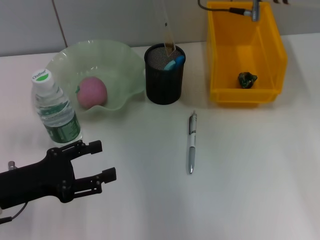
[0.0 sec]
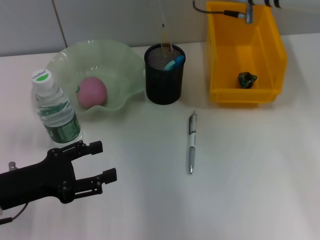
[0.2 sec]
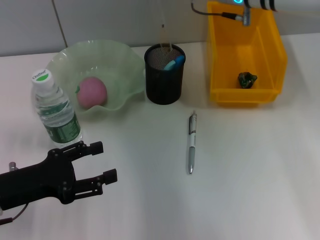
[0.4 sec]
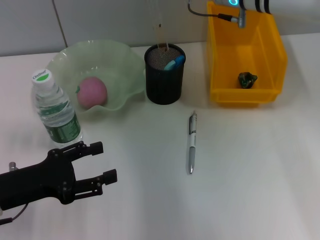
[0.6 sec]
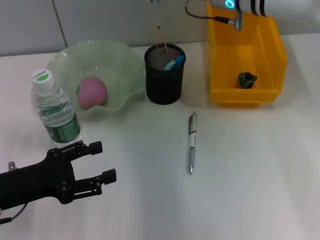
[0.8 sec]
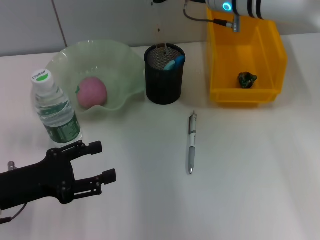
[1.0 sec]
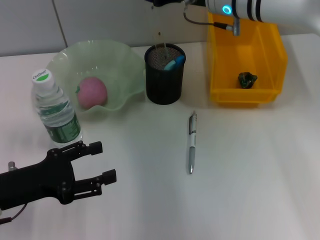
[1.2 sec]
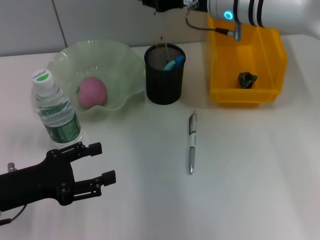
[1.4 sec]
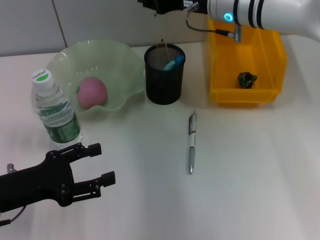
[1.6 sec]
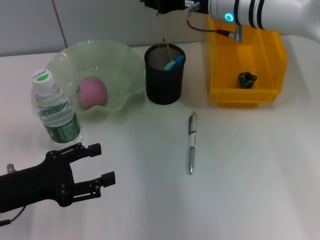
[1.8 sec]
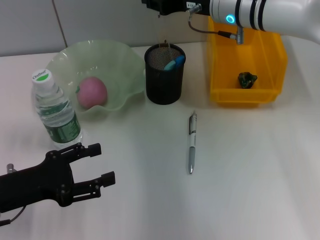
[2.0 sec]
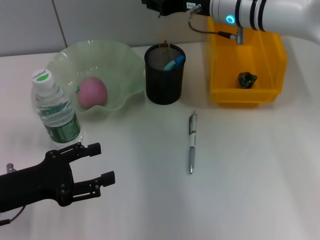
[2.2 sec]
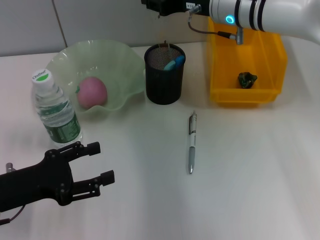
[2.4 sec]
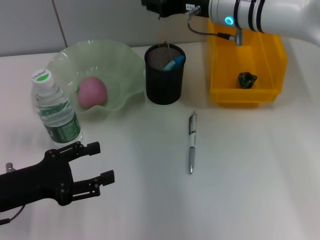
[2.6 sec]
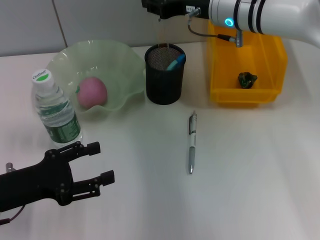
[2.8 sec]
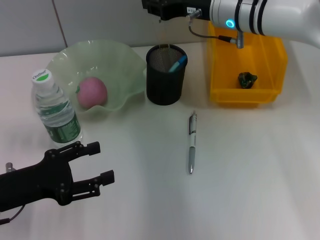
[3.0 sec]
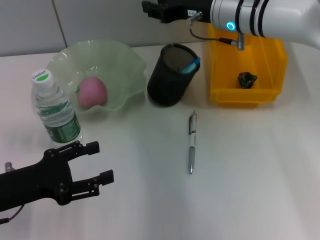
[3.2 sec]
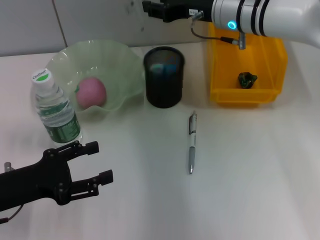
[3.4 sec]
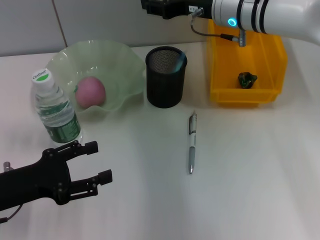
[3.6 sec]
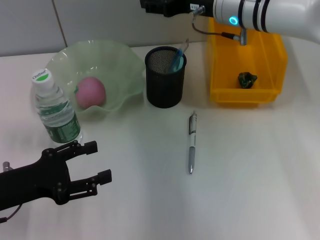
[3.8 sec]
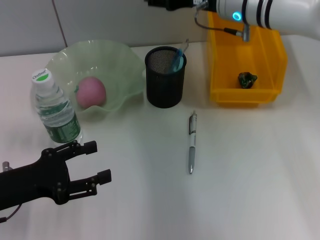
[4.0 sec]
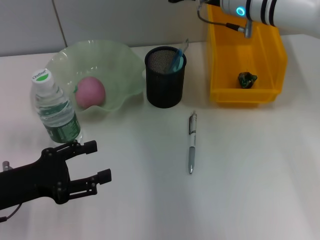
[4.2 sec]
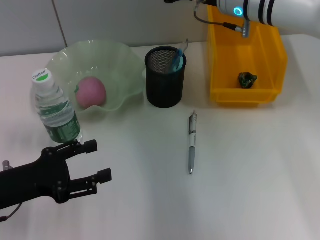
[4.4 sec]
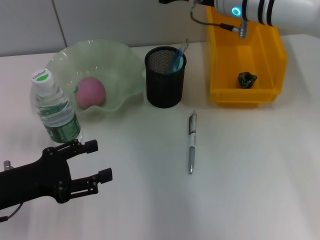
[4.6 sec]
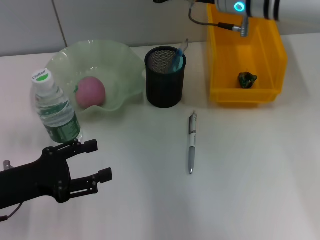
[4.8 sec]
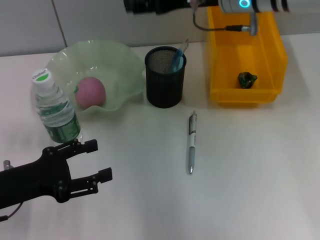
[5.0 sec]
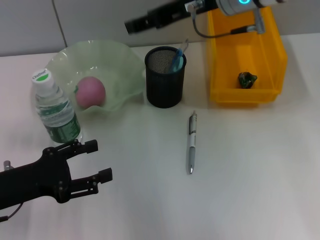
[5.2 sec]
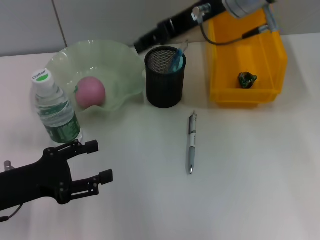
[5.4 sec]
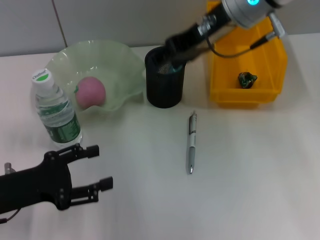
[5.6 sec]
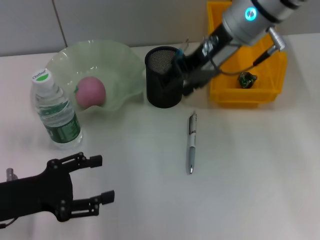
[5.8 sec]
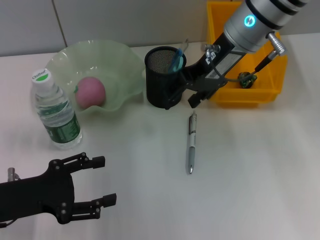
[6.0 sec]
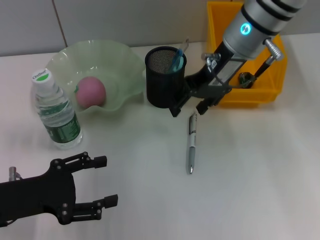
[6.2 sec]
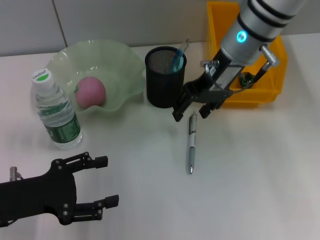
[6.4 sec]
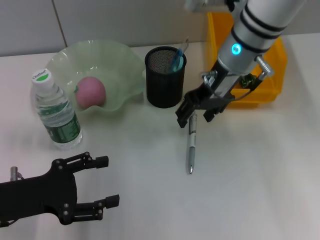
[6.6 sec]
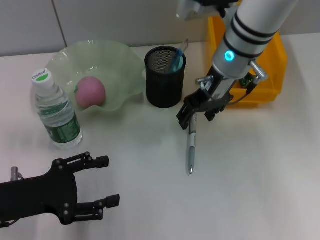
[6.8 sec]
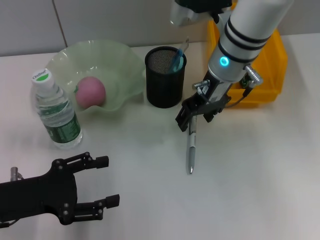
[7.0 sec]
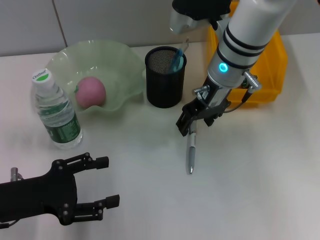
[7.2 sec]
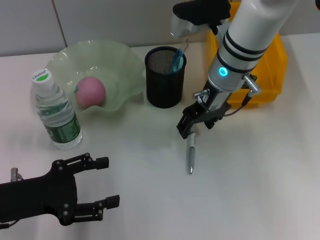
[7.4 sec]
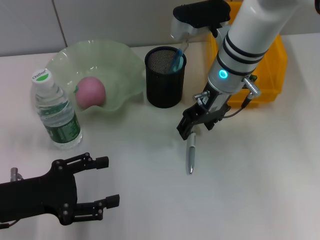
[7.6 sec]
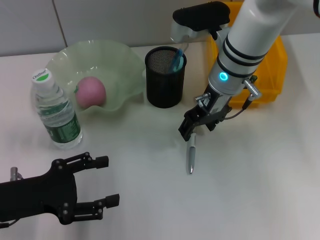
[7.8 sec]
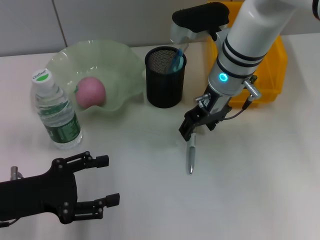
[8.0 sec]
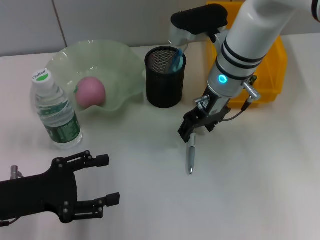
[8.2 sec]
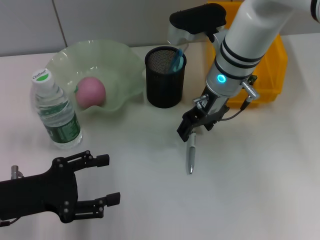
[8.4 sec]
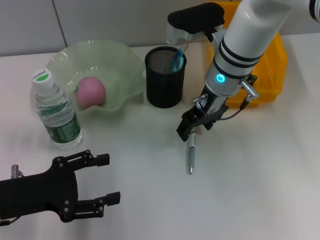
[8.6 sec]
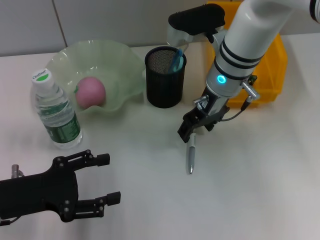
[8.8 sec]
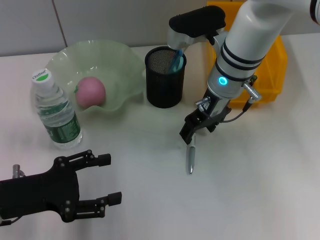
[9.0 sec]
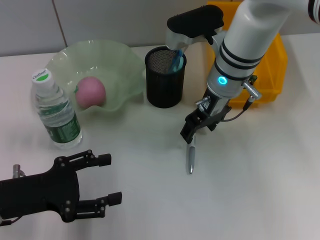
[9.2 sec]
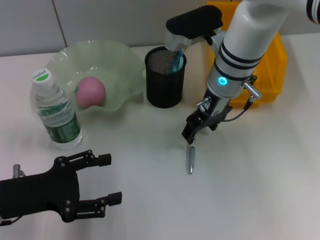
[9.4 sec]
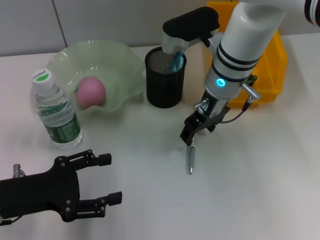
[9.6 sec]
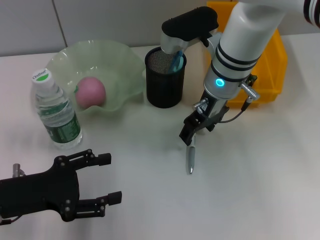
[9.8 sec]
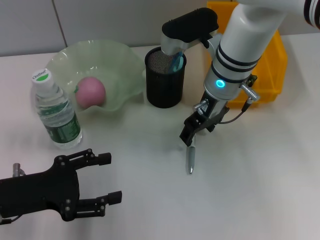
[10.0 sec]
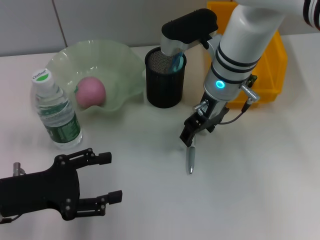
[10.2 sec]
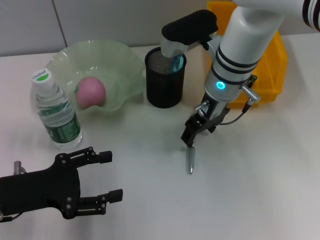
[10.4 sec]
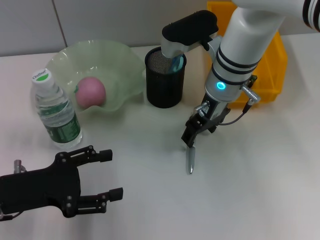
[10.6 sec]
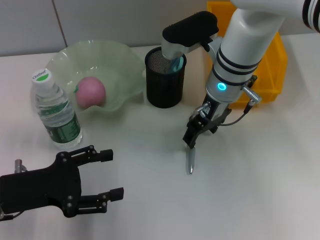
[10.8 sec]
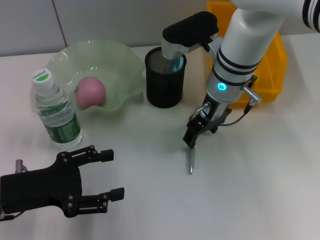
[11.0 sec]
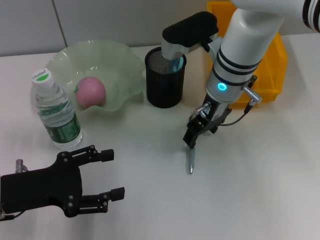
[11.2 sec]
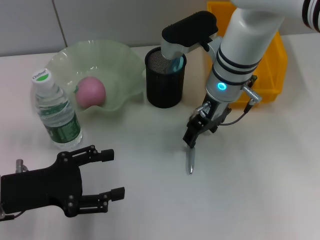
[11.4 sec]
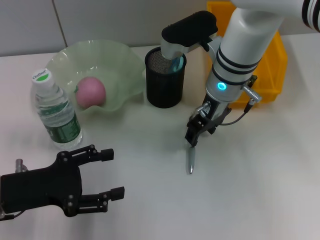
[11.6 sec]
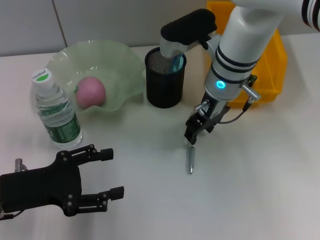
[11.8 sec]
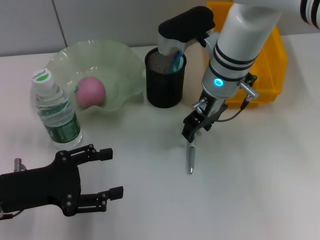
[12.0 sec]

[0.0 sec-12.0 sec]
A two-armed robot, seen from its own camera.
Step, 0.0 sec to 4.0 sec: Place the ruler into the pen holder with the right hand.
0.0 sec to 1.6 sec: The grippers move only a little.
1.6 sec to 3.0 sec: Neither gripper changes place.
3.0 sec to 4.4 sec: The right gripper opens.
6.0 sec to 7.6 sec: The right gripper is displaced downward by some 5 cm.
7.6 sec to 9.0 sec: The two grippers keep their place.
9.0 sec to 10.4 sec: The grippers make only small movements.
10.4 sec to 12.0 sec: The two grippers keep their place.

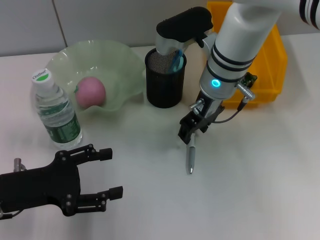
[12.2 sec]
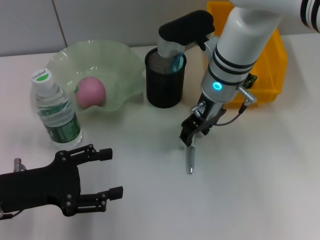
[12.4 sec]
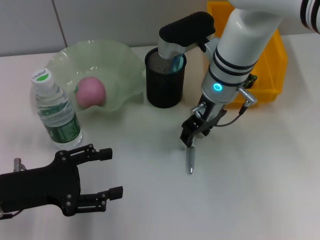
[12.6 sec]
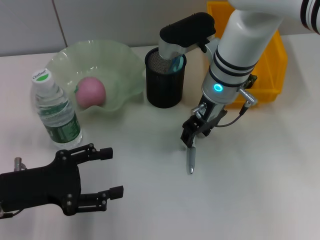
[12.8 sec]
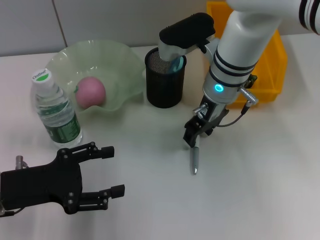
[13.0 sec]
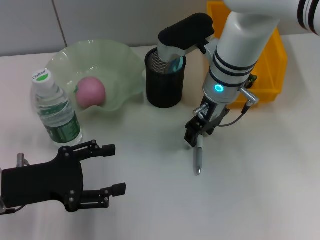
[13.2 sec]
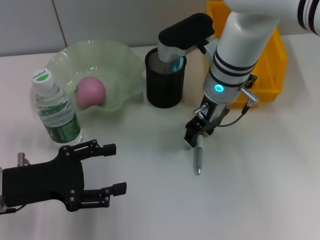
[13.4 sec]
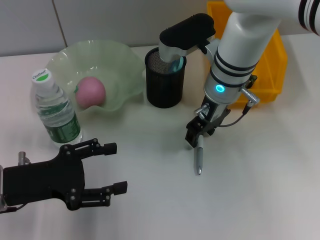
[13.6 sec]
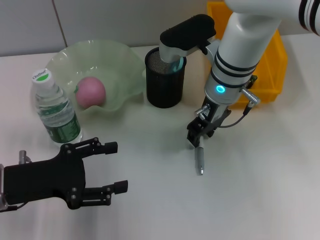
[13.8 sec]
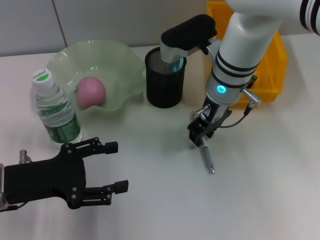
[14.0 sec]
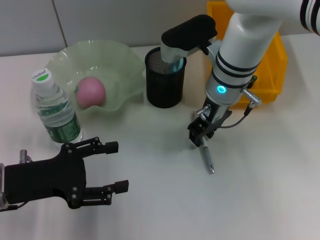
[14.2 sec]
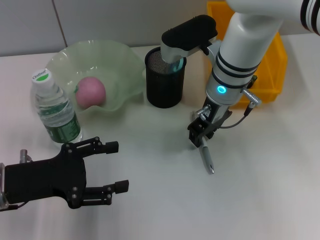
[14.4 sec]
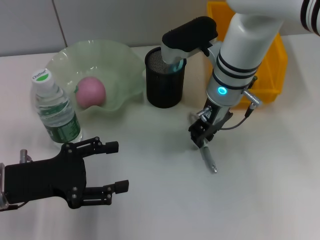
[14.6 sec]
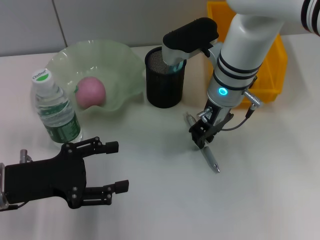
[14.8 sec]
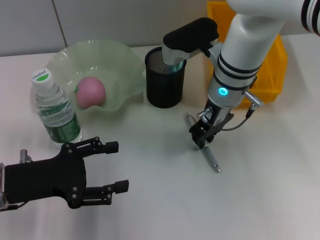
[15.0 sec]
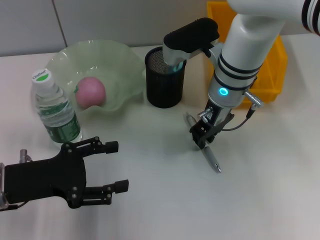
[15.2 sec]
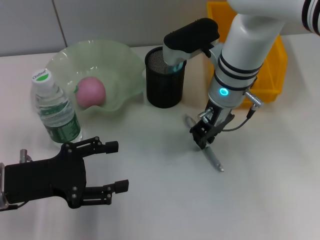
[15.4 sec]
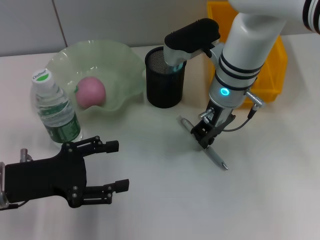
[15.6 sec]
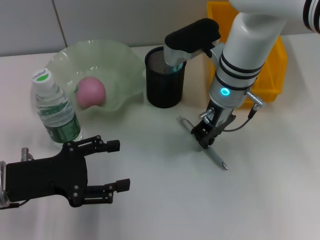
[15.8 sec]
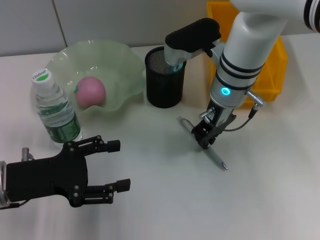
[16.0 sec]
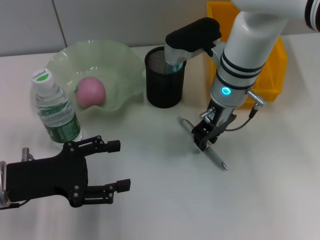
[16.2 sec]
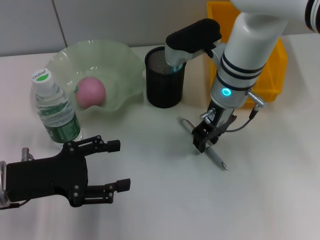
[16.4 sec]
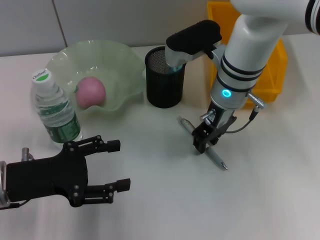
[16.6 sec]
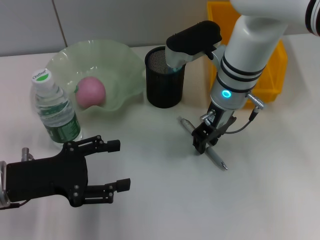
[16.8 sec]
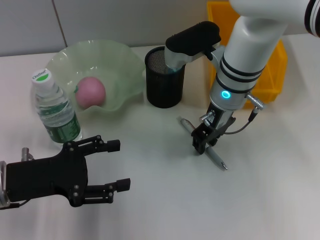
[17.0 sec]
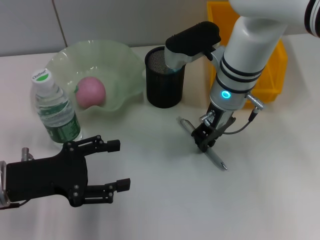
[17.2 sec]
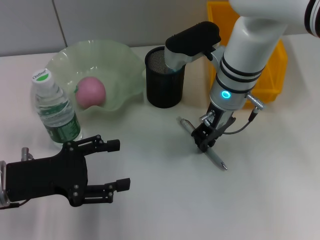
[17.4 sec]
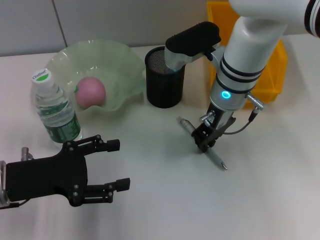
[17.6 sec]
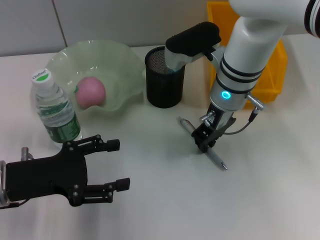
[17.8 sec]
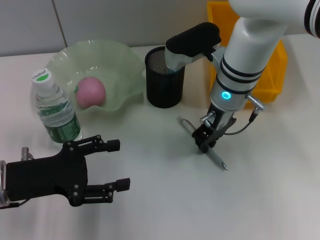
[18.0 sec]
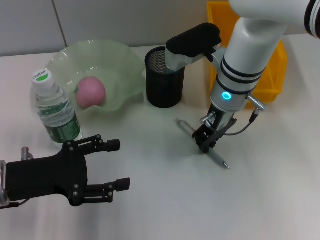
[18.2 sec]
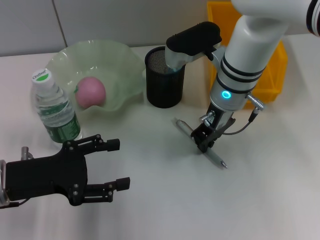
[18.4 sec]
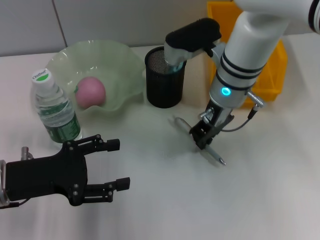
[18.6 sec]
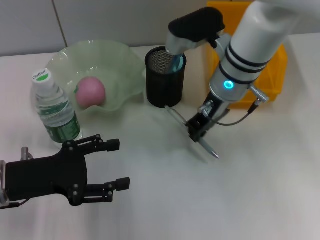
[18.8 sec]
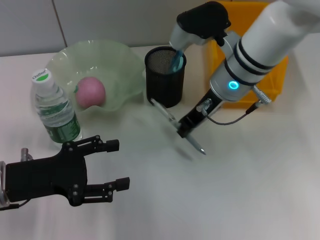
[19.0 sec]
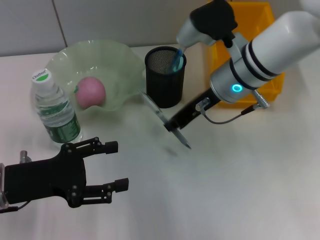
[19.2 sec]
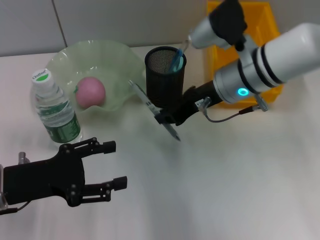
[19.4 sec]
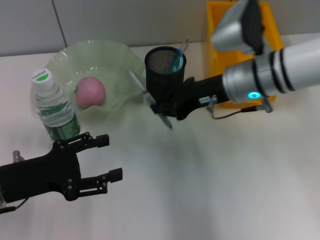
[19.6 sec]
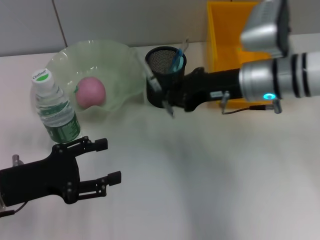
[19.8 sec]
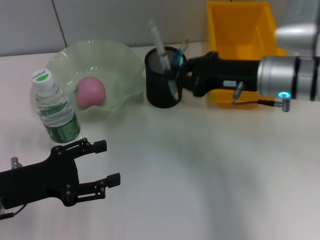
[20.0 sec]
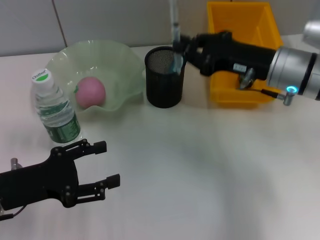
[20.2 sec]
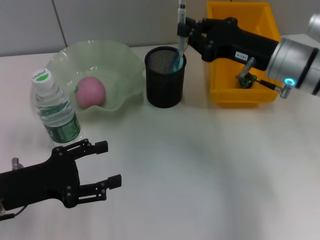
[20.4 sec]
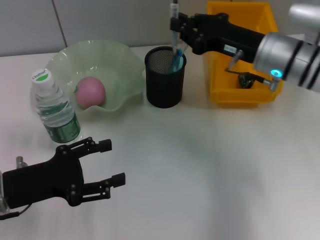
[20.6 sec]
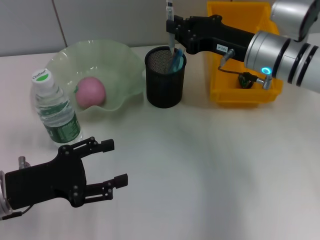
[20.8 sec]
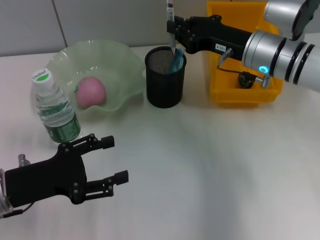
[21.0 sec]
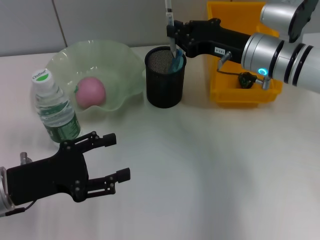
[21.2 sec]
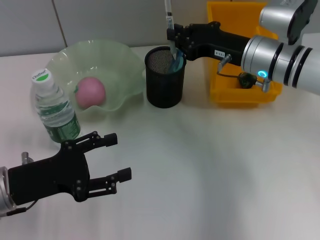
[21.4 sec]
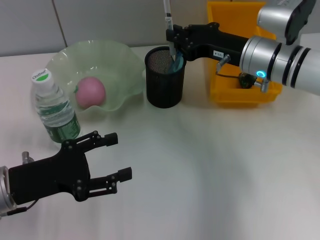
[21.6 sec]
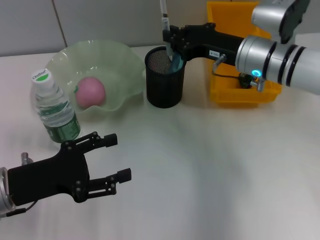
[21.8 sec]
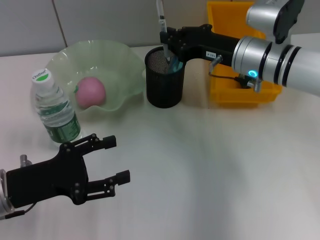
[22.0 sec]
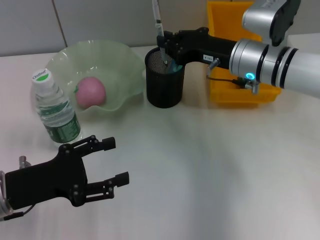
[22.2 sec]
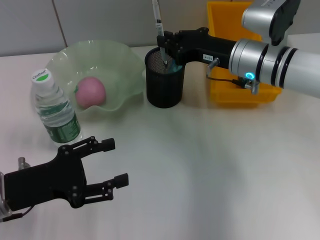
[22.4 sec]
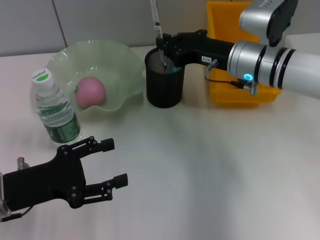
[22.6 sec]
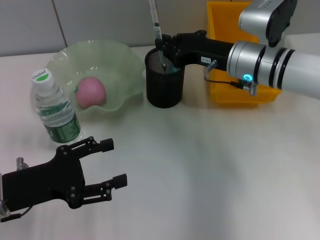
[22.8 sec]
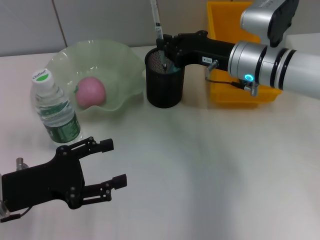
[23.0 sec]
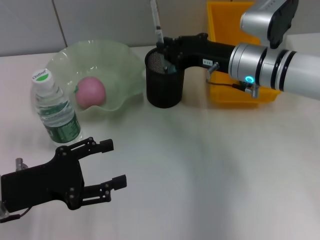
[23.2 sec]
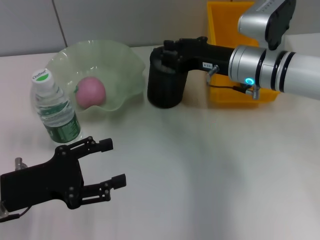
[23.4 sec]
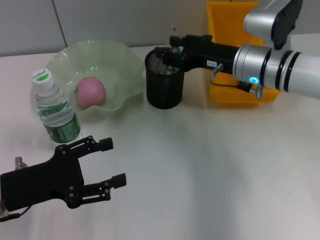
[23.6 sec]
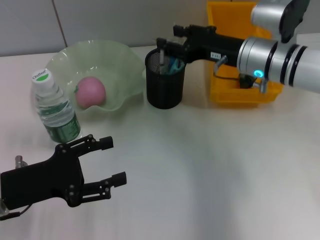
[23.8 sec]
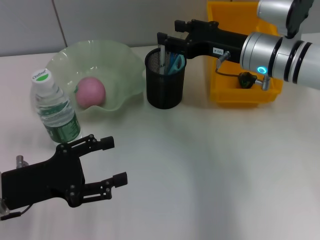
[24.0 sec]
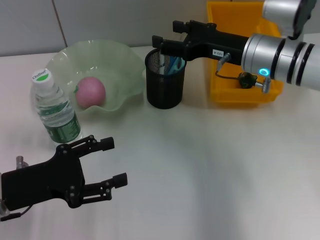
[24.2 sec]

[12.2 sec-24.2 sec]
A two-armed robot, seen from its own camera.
Step, 12.2 sec to 18.2 sec: Grab the gray spring-action pen with the right hand.
Step, 18.4 sec to 23.8 sec: Place the gray spring-action pen into the pen holder with the right hand.
12.2 sec to 13.8 sec: Both grippers stay put.
13.8 sec to 15.2 sec: The right gripper closes its fingers.
15.2 sec to 18.2 sec: Both grippers stay put.
18.2 sec to 19.8 sec: The right gripper moves to the right, about 5 cm.
21.2 sec to 22.6 sec: The grippers stay close to where they were, moving slightly.
22.6 sec to 24.2 sec: The right gripper opens its fingers.
